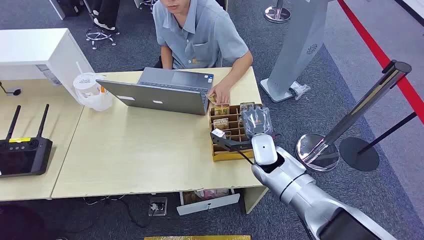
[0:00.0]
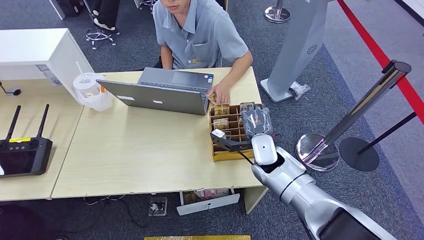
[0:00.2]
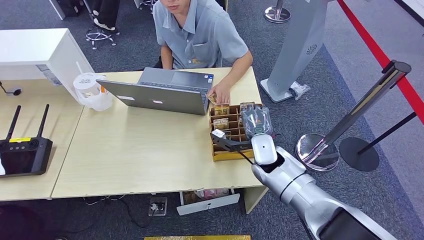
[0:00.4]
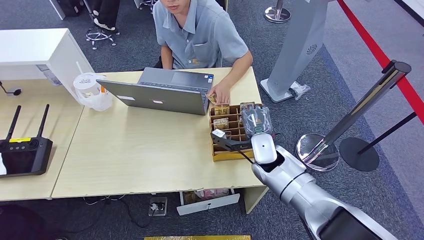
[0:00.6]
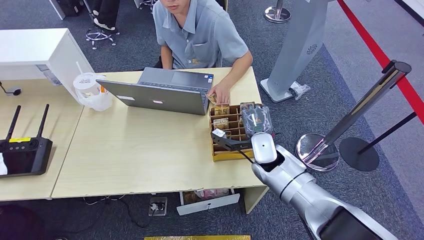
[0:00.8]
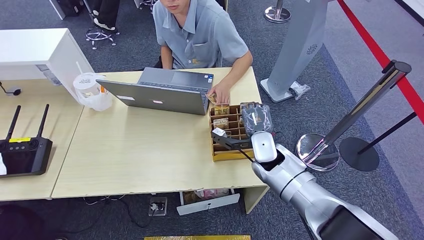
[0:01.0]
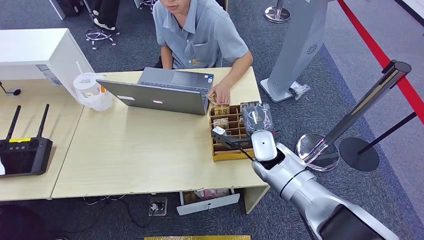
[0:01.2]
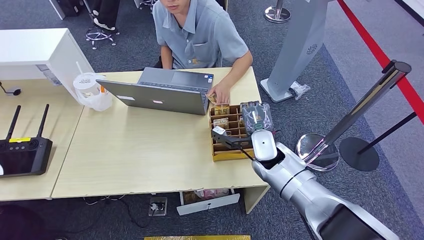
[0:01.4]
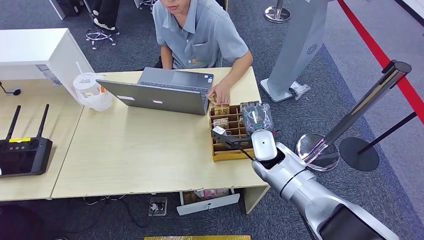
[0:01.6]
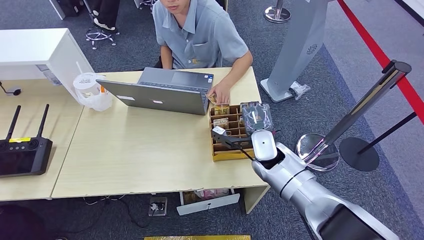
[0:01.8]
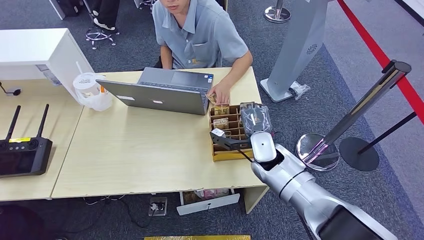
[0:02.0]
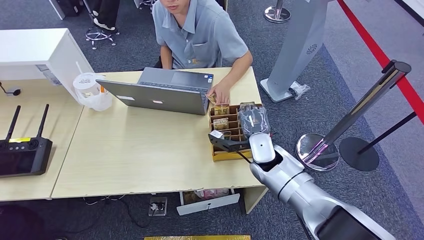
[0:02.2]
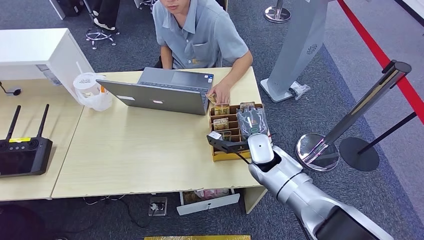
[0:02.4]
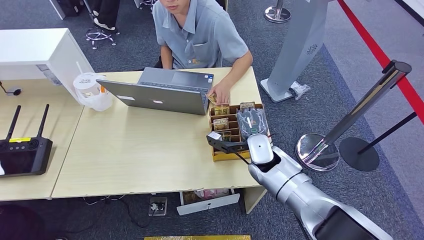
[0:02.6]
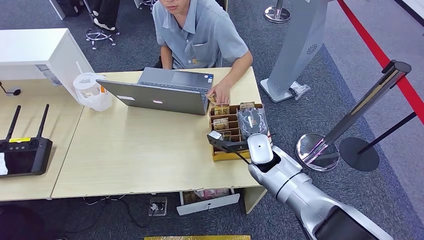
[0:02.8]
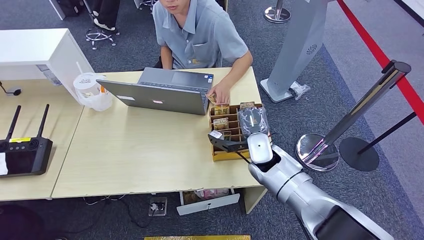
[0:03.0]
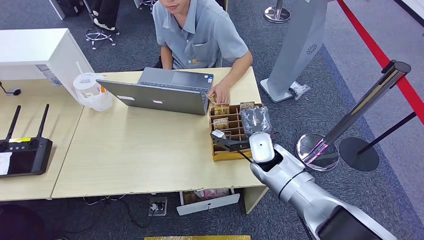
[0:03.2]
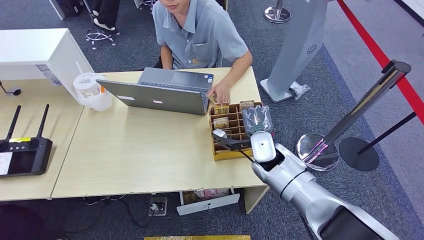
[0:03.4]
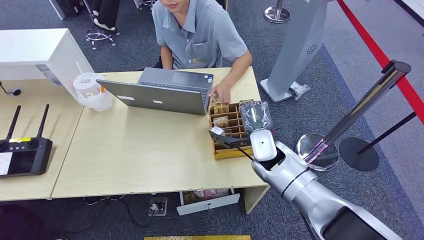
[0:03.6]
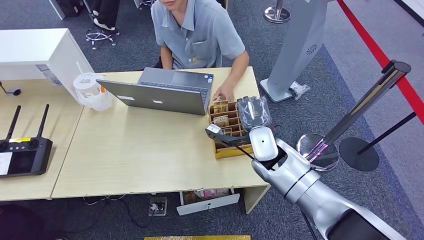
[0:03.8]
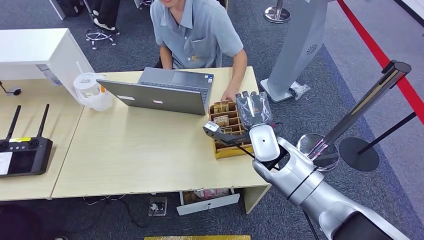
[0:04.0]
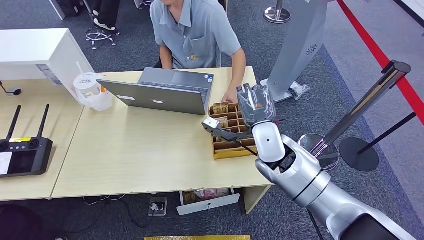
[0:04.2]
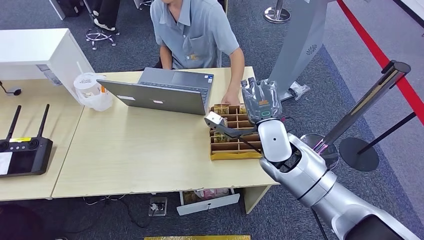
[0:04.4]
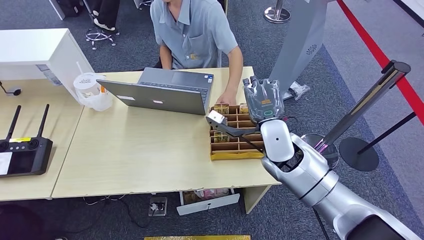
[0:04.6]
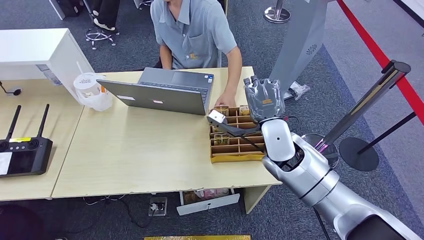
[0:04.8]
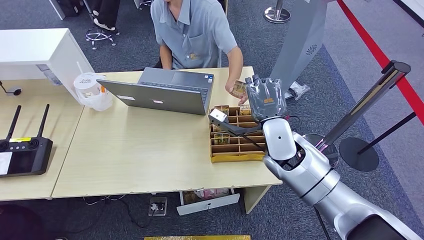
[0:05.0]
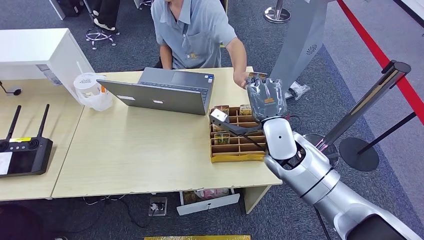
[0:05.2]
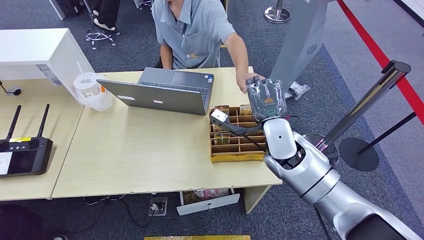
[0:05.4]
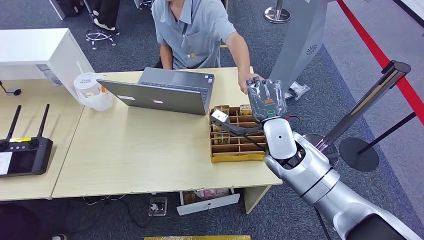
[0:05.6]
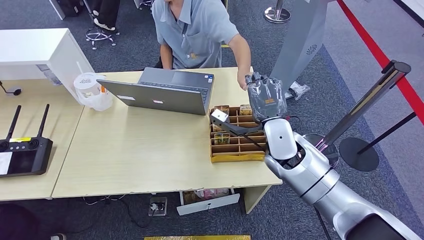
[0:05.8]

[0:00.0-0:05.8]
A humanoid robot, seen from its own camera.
Step, 0:00.0 to 0:04.0: Pick up the room card from the card holder.
Step, 0:04.2 to 0:05.8: Hand the room card to the target.
0:01.4 to 0:02.8: There are only small adjustments of the hands.
0:02.8 to 0:04.4: The right hand moves upward, approximately 10 cm.
0:04.4 to 0:05.8: The hands move only a little.

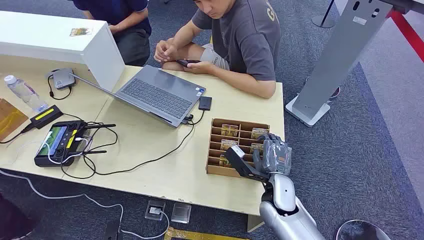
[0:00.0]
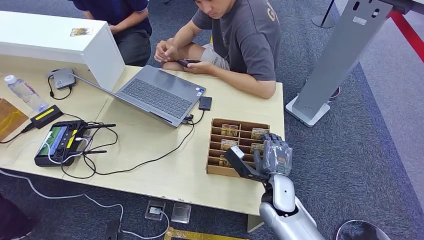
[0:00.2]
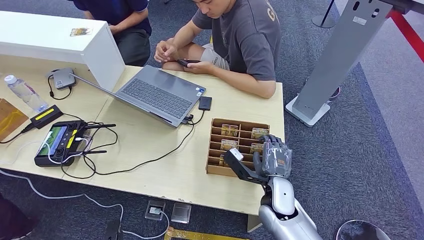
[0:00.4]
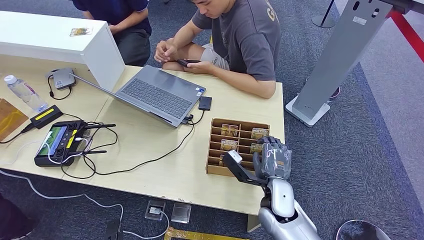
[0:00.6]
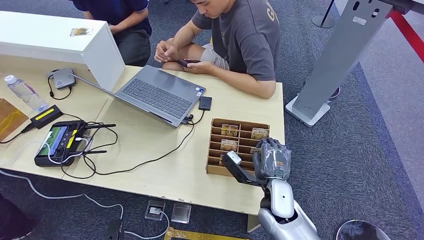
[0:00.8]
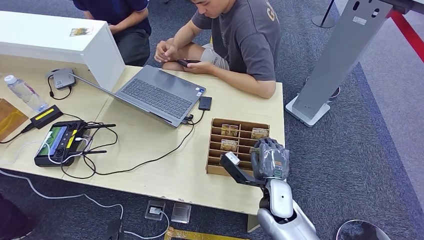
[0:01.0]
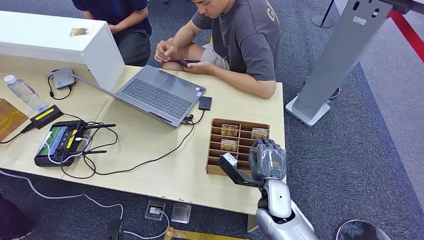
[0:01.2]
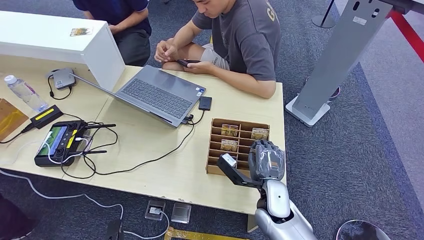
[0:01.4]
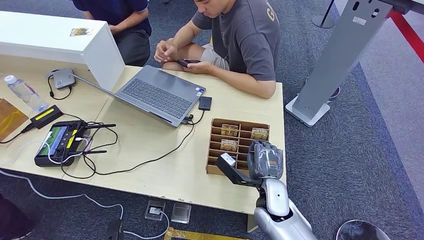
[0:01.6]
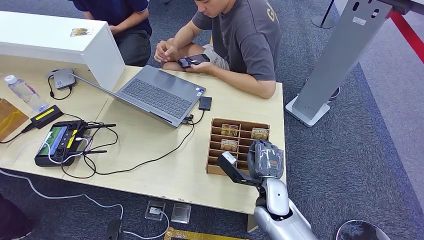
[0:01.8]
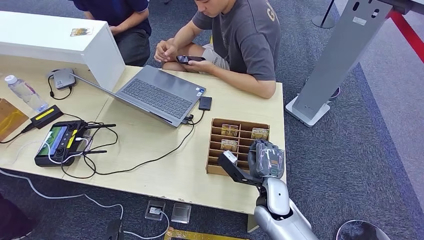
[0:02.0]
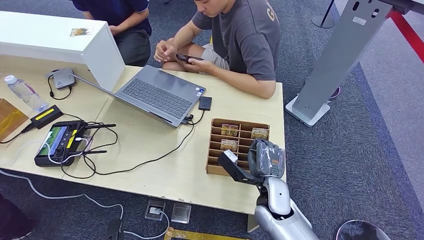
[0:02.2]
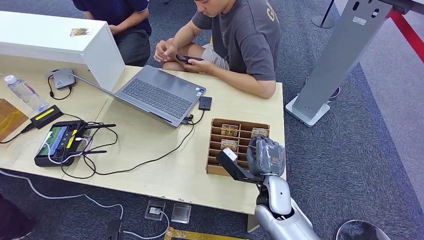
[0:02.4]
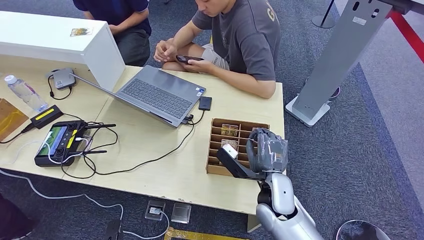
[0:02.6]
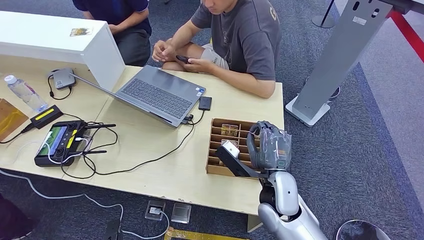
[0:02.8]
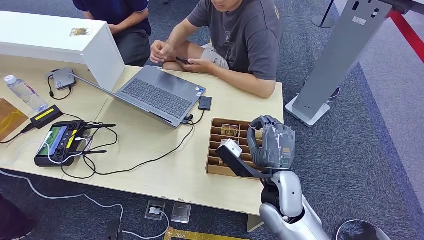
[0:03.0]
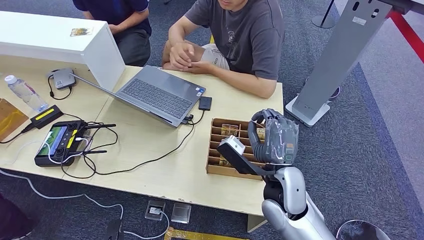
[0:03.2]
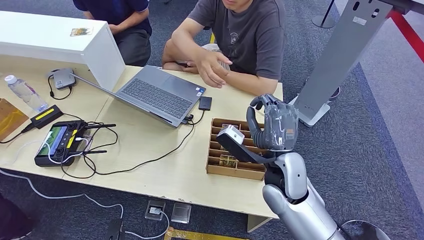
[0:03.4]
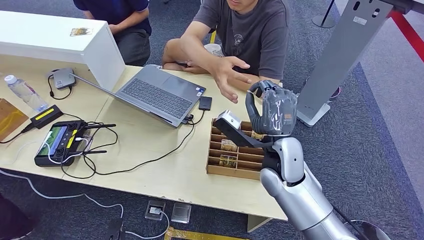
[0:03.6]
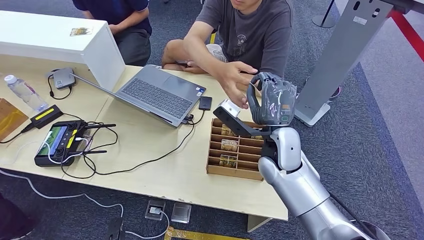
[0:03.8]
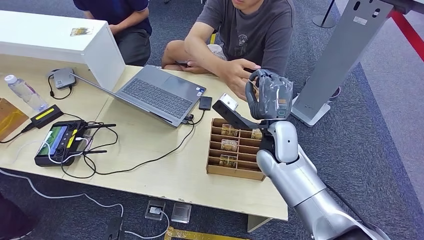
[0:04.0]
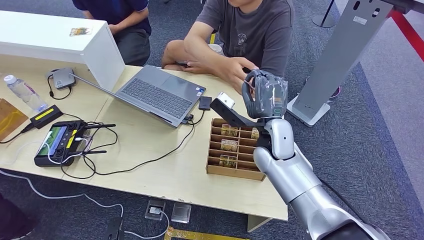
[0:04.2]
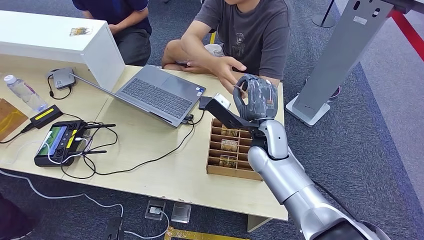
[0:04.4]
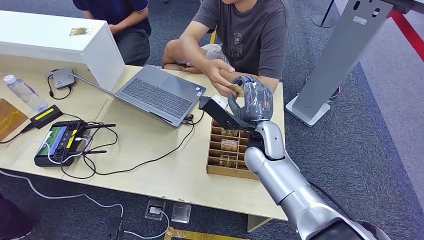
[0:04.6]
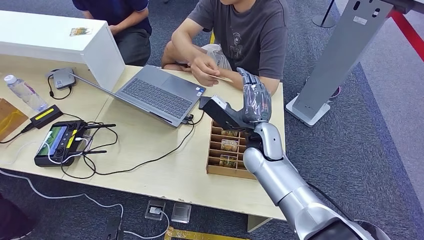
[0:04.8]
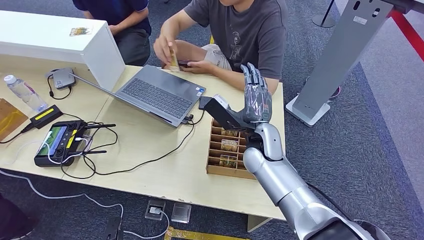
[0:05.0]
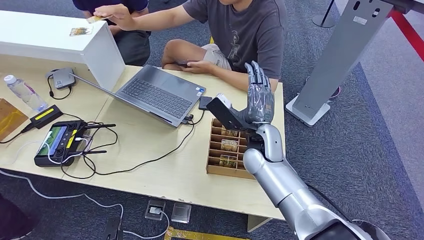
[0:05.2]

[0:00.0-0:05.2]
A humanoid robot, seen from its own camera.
Step, 0:00.0 to 0:02.8: Pick up the room card from the card holder.
Step, 0:03.2 to 0:05.2: Hand the room card to the target.
0:01.8 to 0:03.4: The right hand shifts about 10 cm upward.
0:03.4 to 0:05.2: The right hand goes about 10 cm forward.
